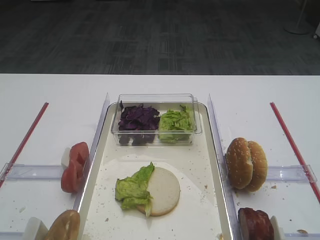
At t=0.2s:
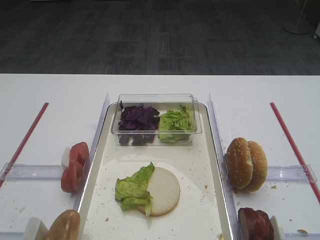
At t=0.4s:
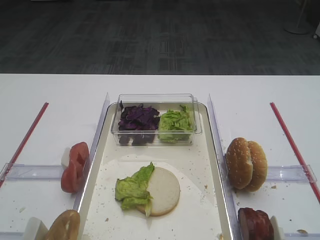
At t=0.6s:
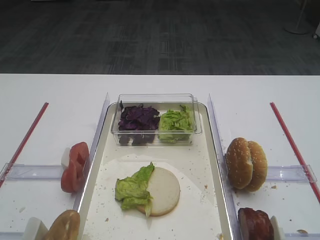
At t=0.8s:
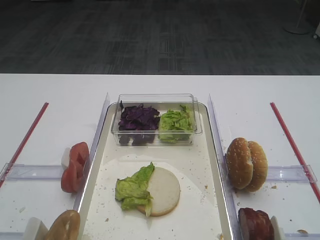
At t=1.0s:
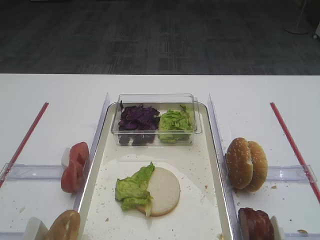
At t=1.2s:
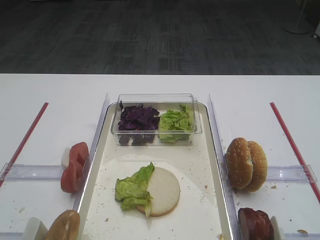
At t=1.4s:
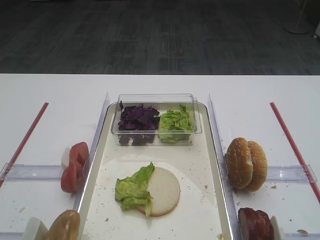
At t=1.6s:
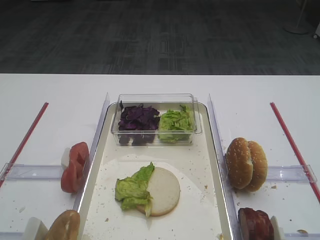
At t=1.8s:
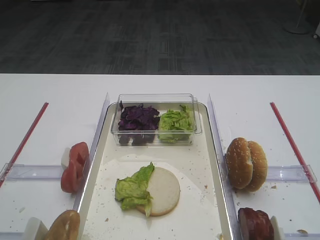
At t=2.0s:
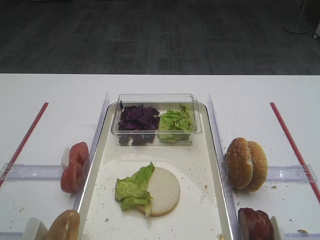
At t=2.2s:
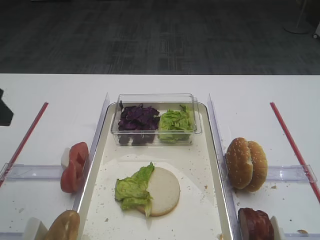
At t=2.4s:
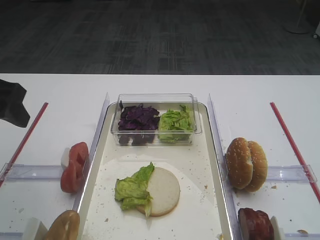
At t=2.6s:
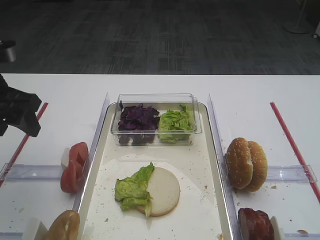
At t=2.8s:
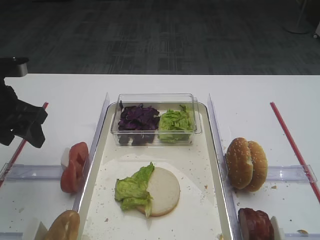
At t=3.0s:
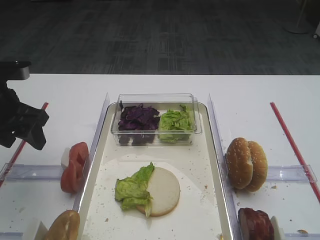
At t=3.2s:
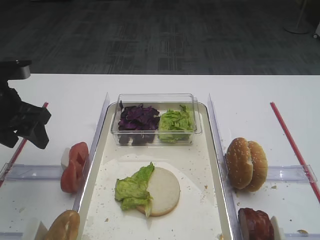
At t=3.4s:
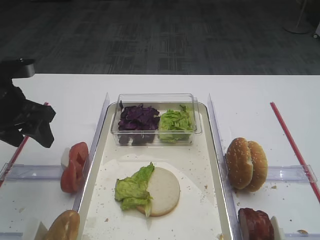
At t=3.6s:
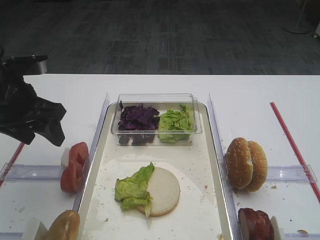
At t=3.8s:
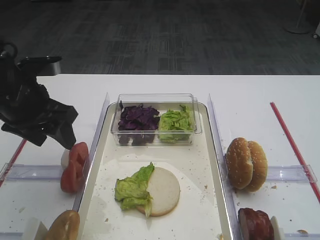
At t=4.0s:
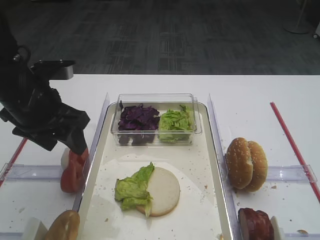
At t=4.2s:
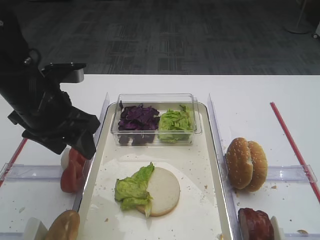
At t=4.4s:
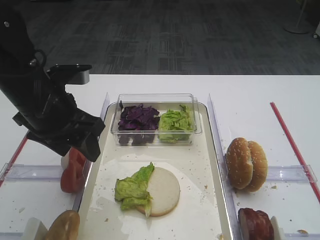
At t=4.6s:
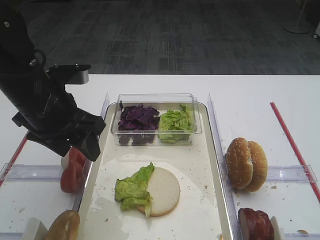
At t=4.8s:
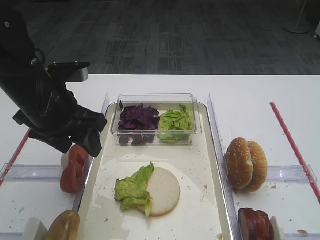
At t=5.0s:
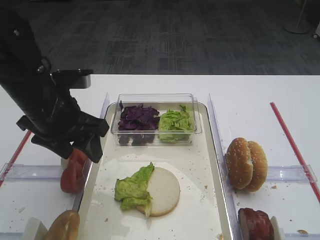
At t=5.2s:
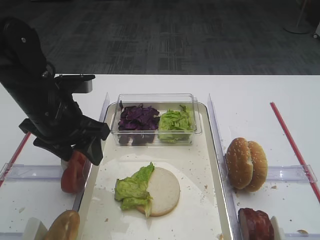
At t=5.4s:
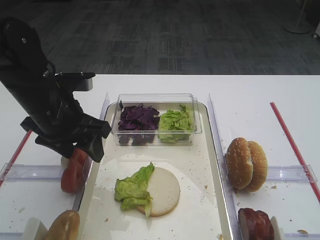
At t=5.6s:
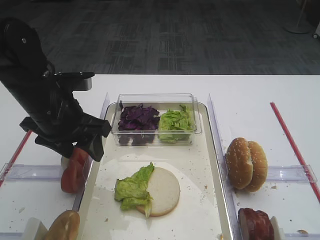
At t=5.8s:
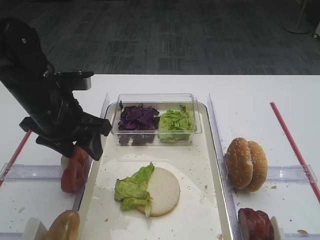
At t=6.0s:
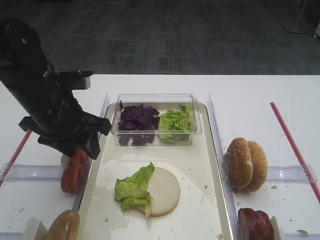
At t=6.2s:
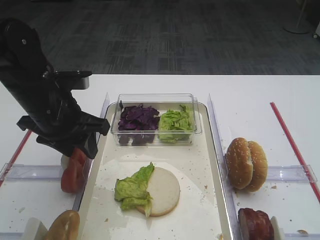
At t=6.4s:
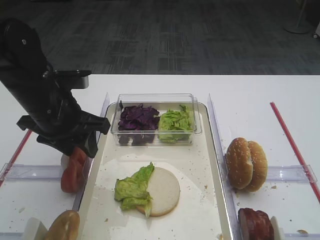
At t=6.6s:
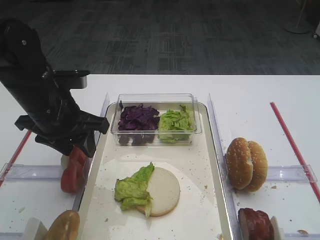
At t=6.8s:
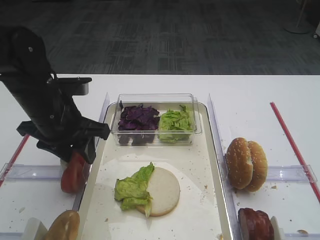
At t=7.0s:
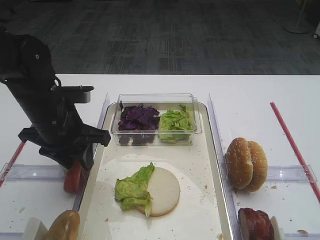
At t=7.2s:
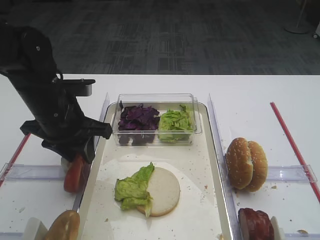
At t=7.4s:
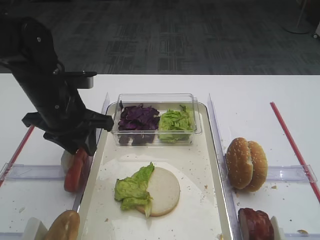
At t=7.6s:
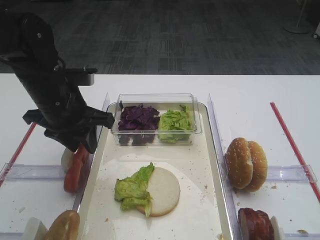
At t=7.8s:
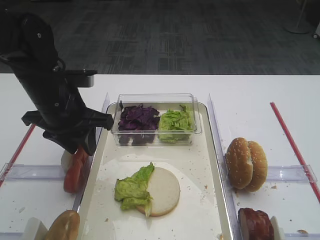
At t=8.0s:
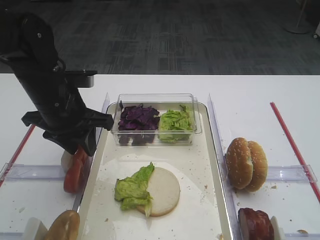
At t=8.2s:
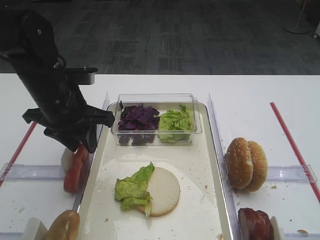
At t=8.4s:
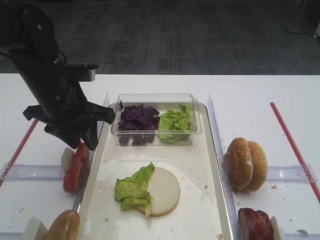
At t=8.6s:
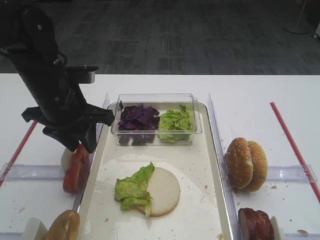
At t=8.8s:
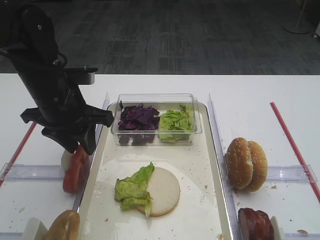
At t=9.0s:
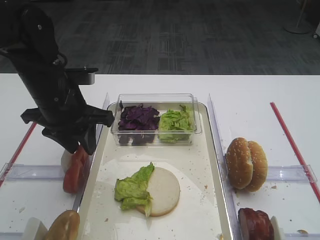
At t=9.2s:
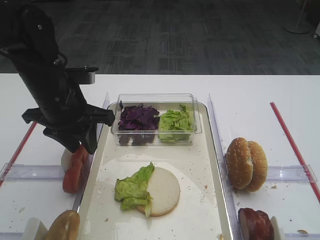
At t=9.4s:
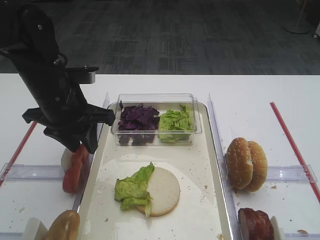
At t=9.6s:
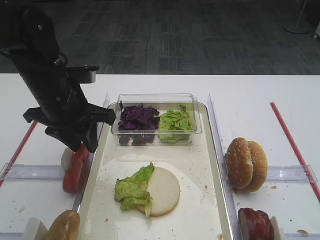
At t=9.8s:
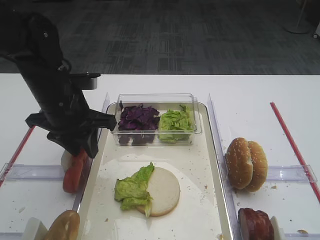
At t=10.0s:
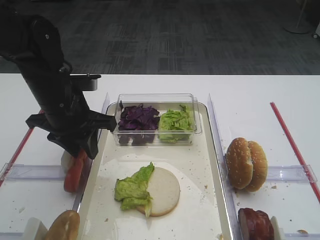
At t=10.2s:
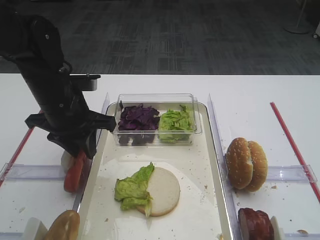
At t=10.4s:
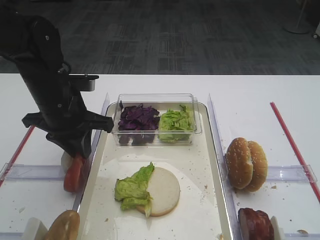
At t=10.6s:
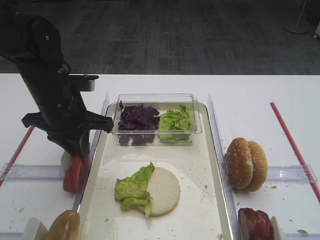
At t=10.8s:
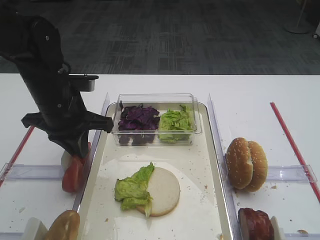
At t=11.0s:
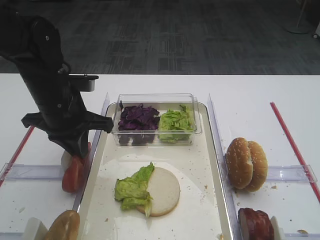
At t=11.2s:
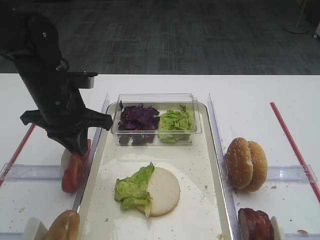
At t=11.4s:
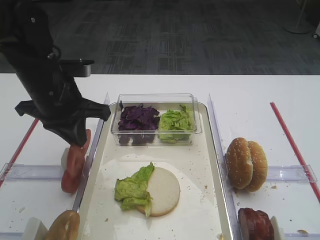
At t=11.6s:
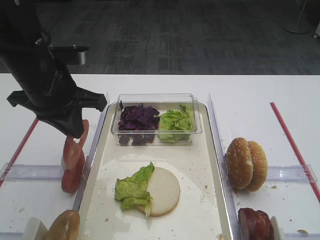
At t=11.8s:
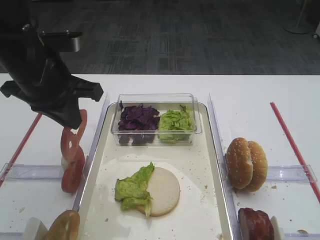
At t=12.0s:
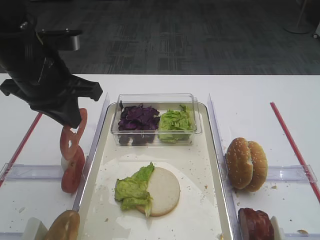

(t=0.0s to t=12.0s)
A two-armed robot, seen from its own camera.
Step, t=0.0s - t=11.8s: Pick up the tomato slice with the left gripper.
t=1.6s - t=3.0s: The left gripper moves forward, roughly 30 cm.
t=3.0s - t=4.4s: The left gripper goes about 10 cm to the right.
t=4.4s - t=7.6s: The grippers make only small movements.
t=7.6s - t=9.0s: Both grippers stay about where they are.
t=9.0s - t=10.4s: The grippers stay close to where they were, moving slightly.
t=10.4s - t=12.0s: The left gripper moves upward, roughly 10 cm.

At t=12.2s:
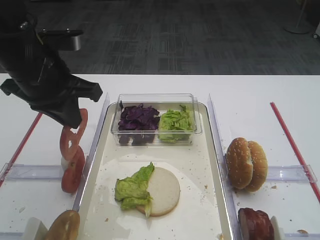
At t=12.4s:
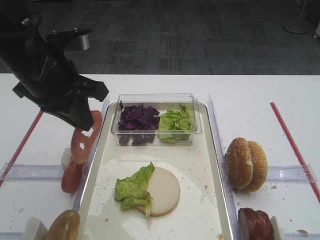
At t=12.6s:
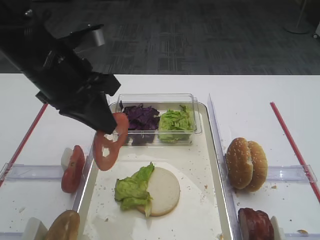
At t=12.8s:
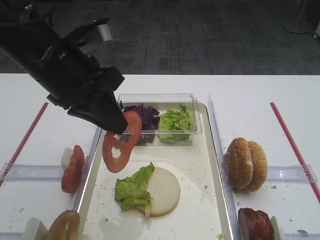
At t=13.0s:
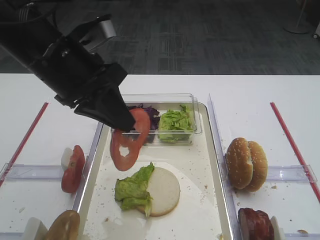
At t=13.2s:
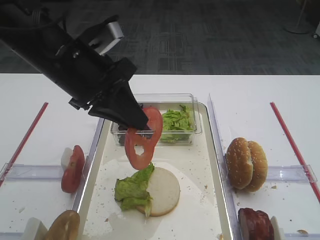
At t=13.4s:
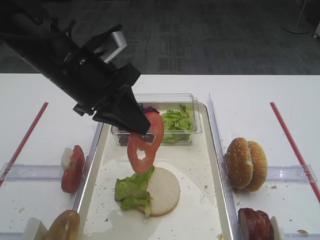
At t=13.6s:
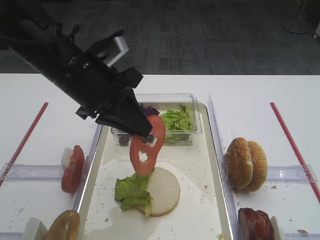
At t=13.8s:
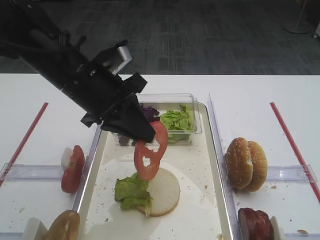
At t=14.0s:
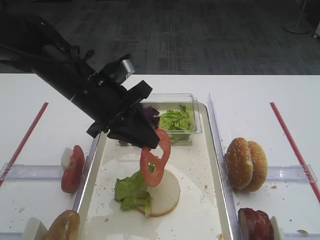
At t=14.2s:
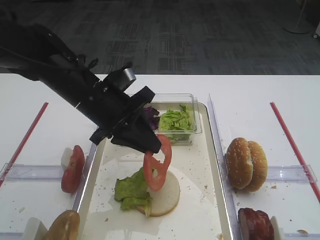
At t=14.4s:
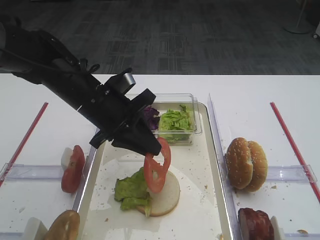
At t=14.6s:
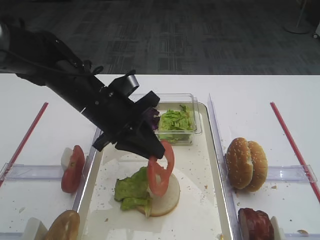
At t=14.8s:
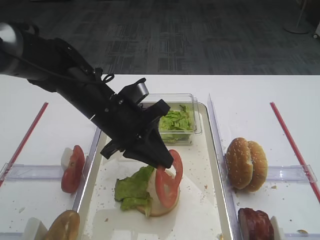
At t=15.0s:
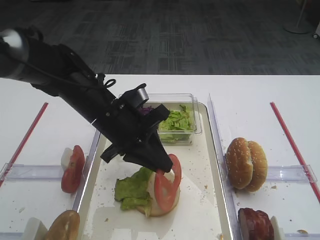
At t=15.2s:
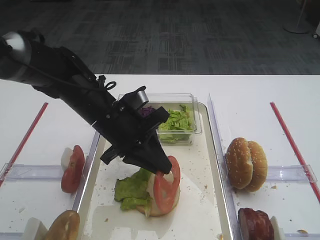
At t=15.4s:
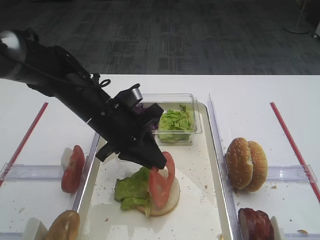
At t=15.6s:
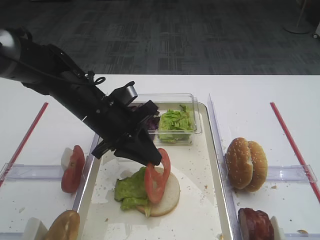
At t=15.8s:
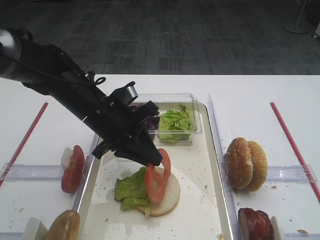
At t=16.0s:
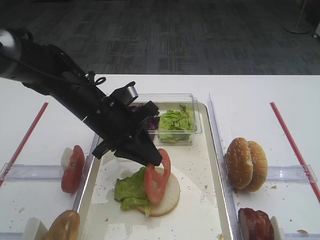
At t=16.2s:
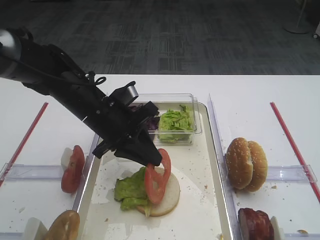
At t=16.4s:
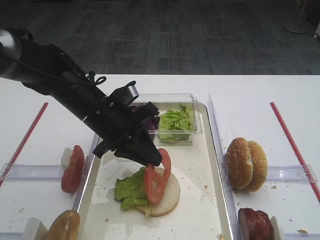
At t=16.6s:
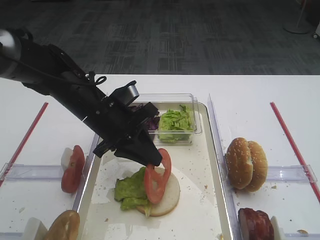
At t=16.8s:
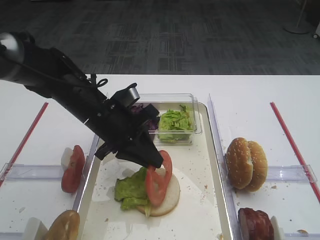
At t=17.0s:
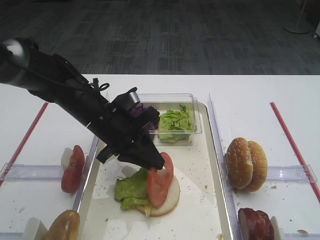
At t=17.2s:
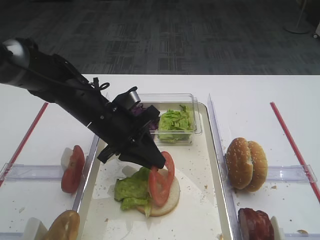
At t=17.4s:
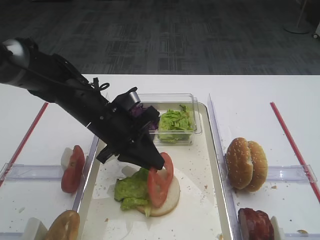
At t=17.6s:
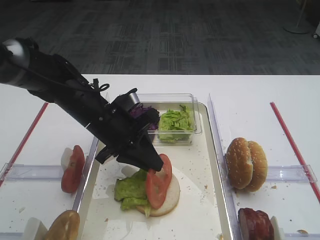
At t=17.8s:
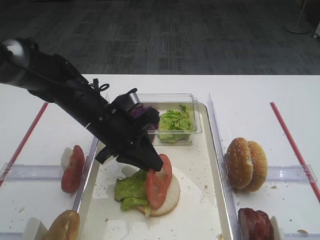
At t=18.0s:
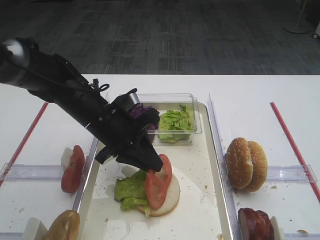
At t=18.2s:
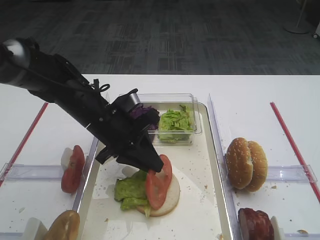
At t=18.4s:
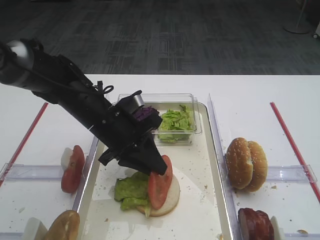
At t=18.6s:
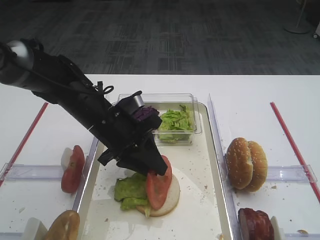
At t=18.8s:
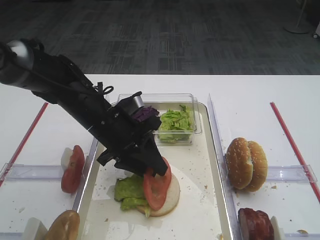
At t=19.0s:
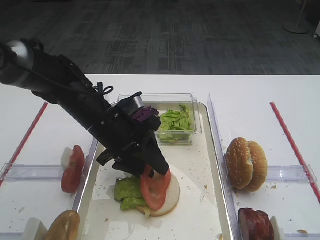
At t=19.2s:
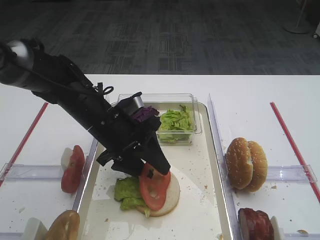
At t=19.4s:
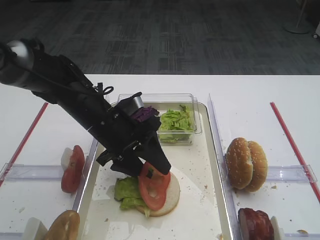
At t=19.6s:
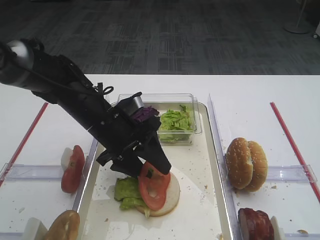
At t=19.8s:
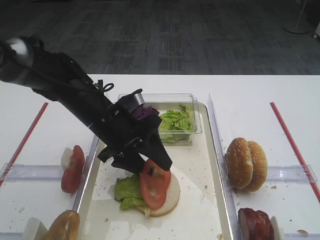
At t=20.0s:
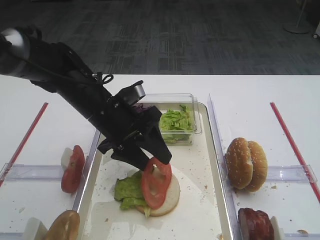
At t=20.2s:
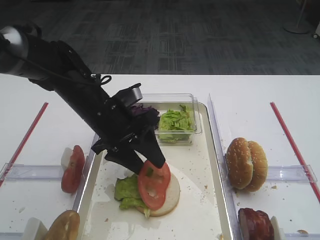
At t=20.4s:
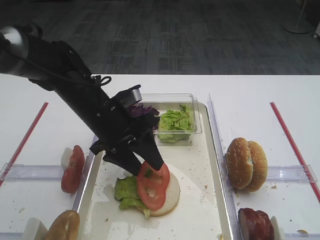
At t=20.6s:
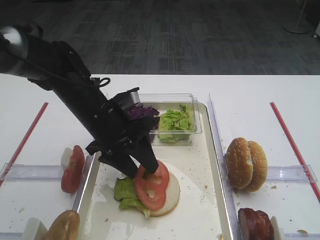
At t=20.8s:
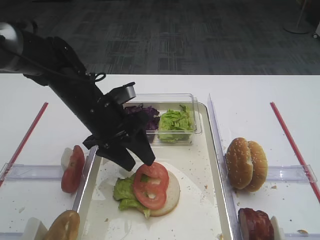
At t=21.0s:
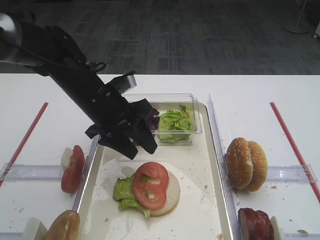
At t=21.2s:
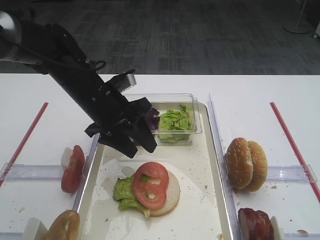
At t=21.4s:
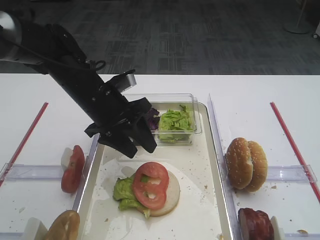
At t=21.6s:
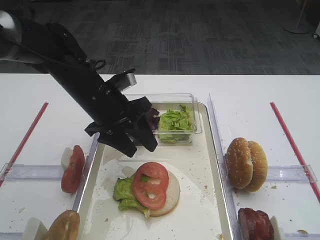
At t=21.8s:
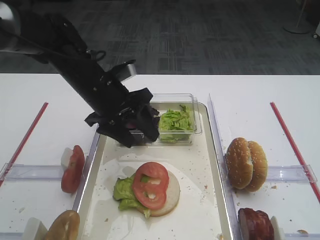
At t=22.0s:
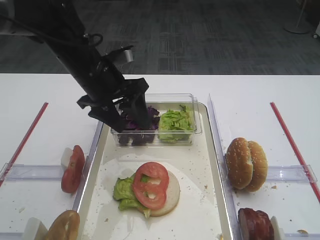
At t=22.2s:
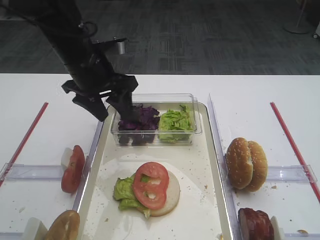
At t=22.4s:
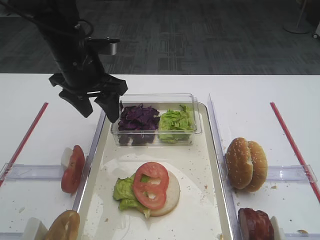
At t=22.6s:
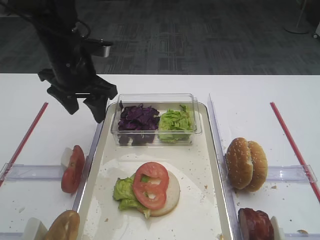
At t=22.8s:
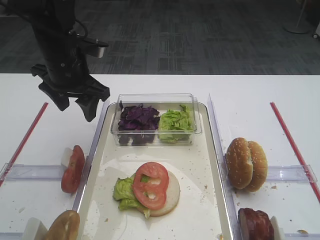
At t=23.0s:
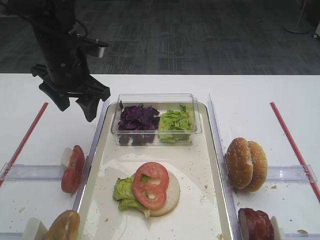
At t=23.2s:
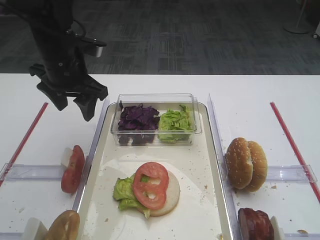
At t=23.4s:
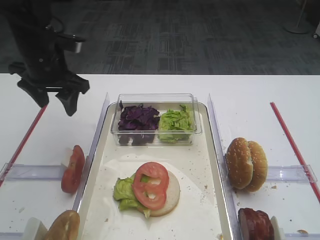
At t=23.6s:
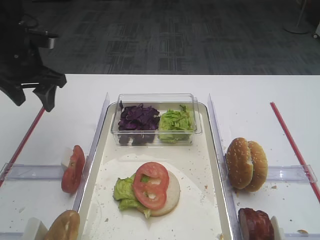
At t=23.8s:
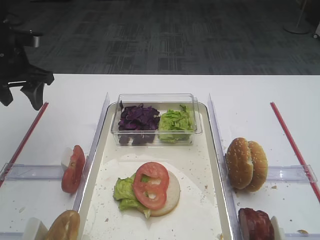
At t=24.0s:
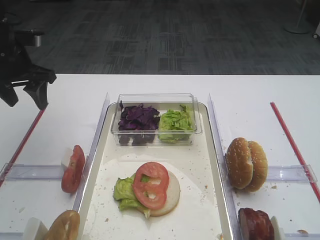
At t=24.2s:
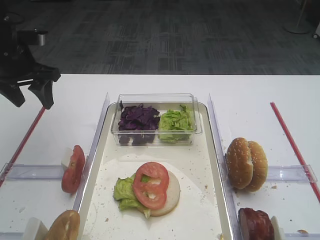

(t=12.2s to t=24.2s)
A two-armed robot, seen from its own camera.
Step, t=12.2s - t=21.2s: Place the tomato slice on the lettuce leaf with the left gripper.
t=12.2s - t=13.8s: The left gripper is displaced to the right by approximately 5 cm.
t=13.8s - t=15.2s: The left gripper travels downward by roughly 5 cm.
t=15.2s - t=18.2s: The grippers stay close to where they were, moving slightly.
t=18.2s - t=19.8s: The left gripper opens up.
t=19.8s - t=21.2s: The grippers move only a little.
t=21.2s - t=22.6s: The left gripper travels upward by approximately 5 cm.
t=22.6s - t=24.2s: The left gripper travels to the left by approximately 10 cm.
